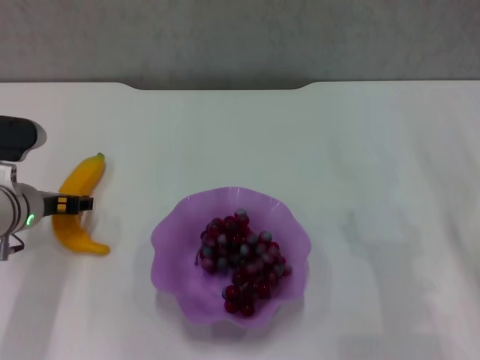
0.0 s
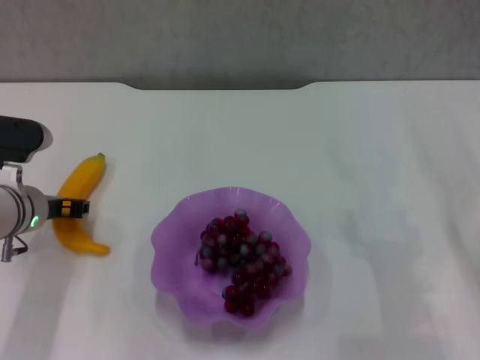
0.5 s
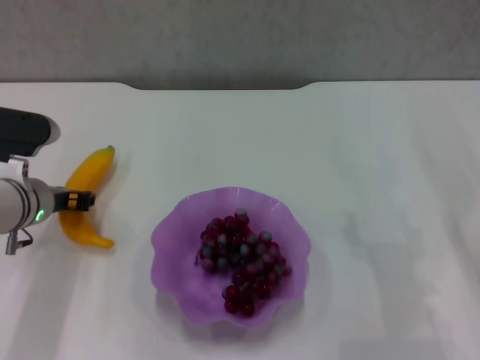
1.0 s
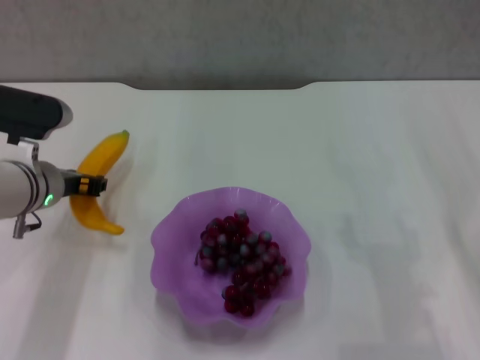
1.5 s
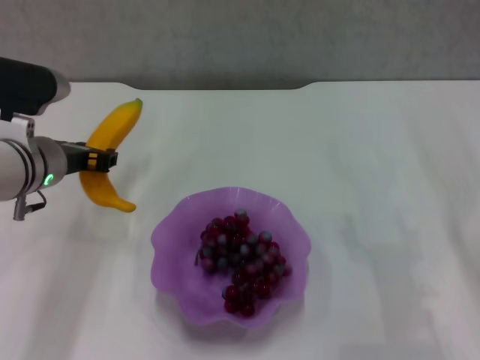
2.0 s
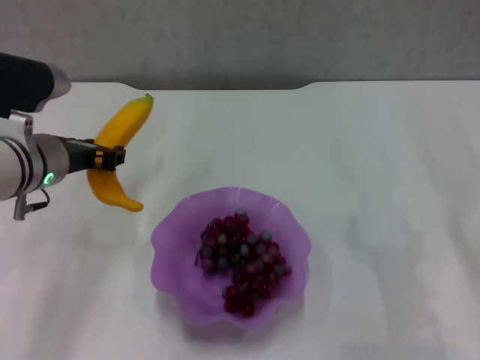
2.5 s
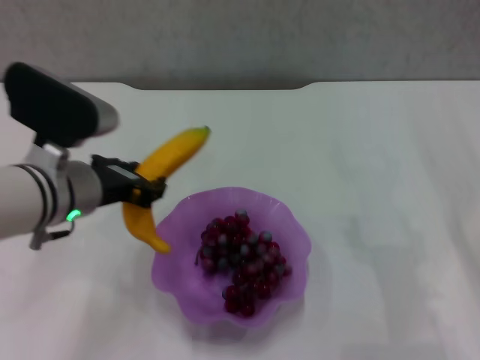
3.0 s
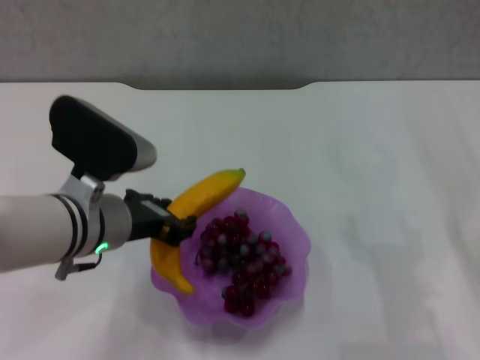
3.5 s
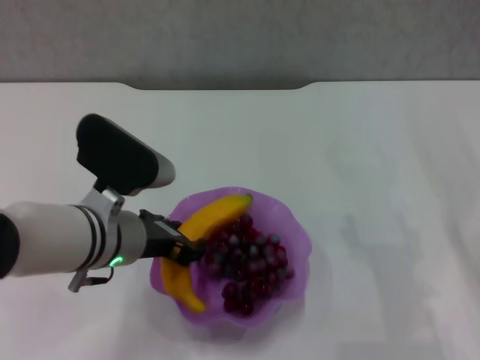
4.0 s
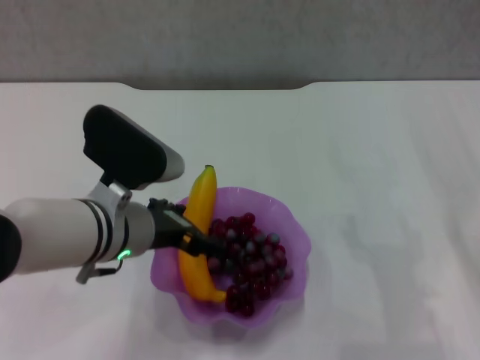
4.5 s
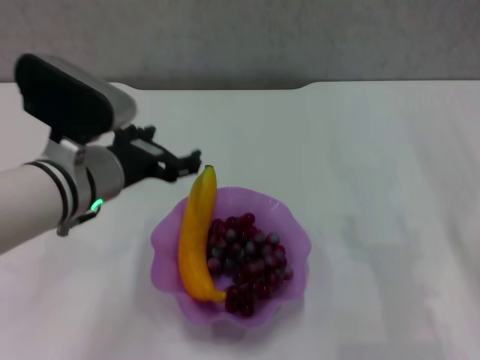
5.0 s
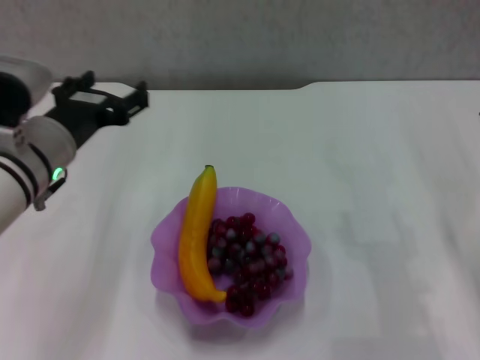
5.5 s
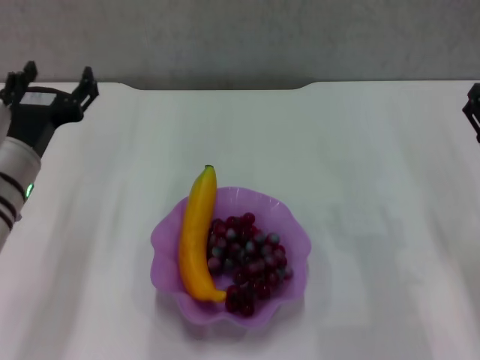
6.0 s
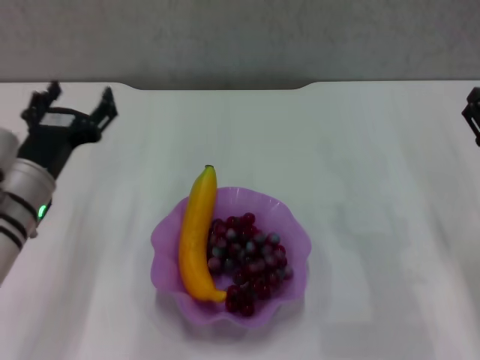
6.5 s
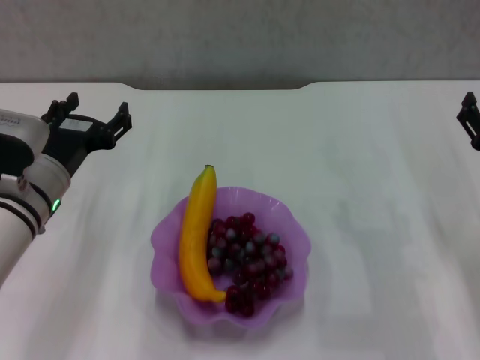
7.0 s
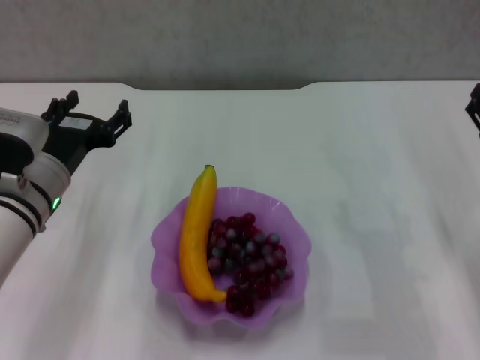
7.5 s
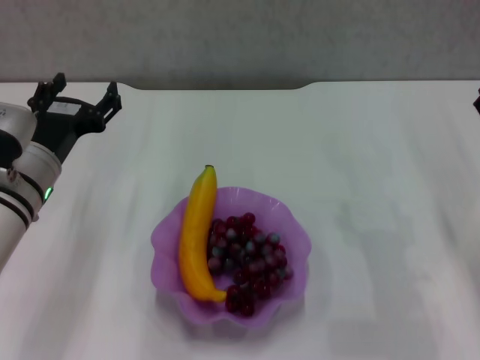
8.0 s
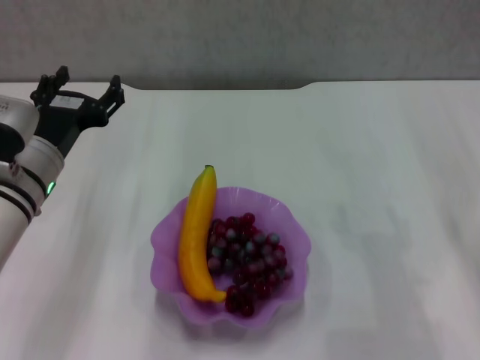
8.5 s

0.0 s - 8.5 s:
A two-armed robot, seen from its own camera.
Step, 1.0 s - 4.5 s: Place the banana in the purple plate with left gripper.
0.0 s - 2.0 s: The left gripper travels upward by roughly 5 cm, and closes its fingers.
2.0 s - 4.0 s: The left gripper goes roughly 10 cm to the right and backward.
4.0 s - 6.5 s: The left gripper is displaced to the left by about 10 cm, and opens.
6.5 s - 8.5 s: The grippers make only small movements.
